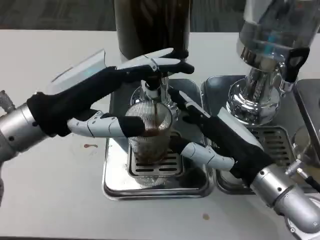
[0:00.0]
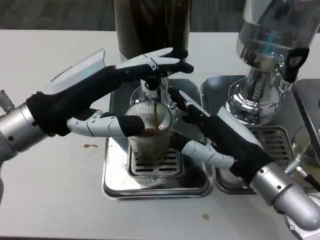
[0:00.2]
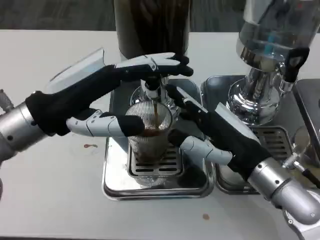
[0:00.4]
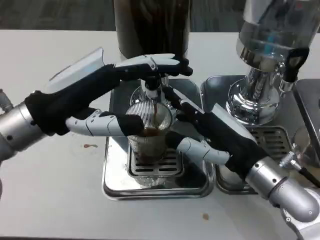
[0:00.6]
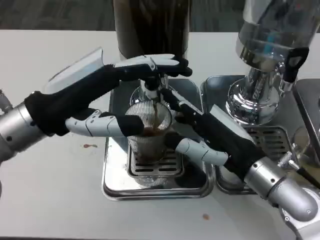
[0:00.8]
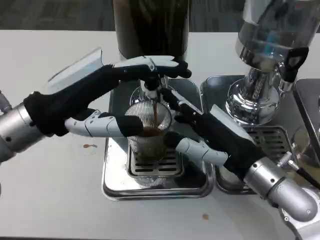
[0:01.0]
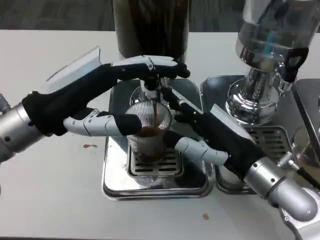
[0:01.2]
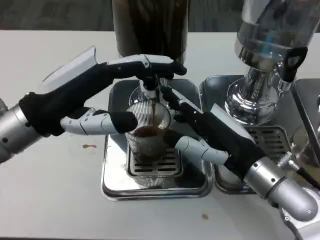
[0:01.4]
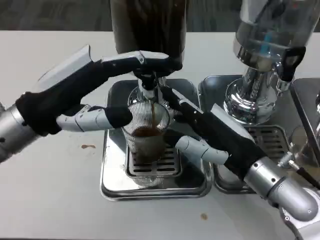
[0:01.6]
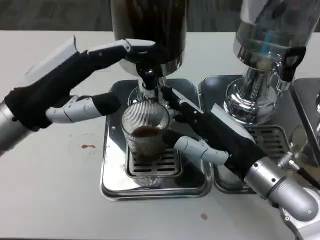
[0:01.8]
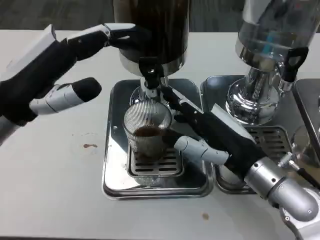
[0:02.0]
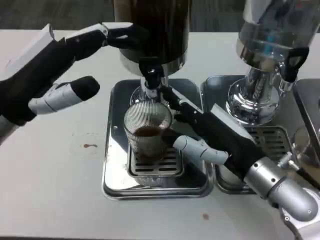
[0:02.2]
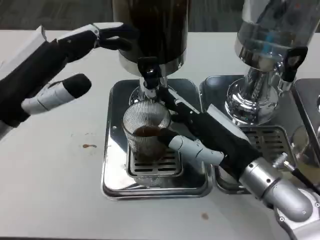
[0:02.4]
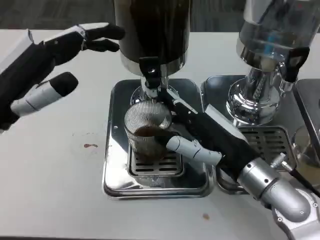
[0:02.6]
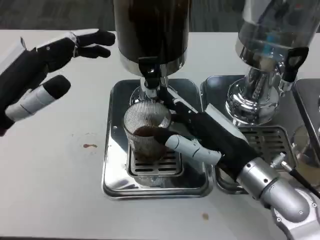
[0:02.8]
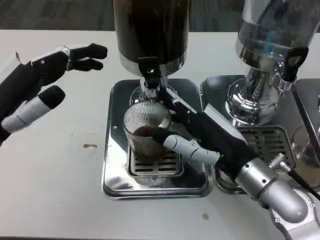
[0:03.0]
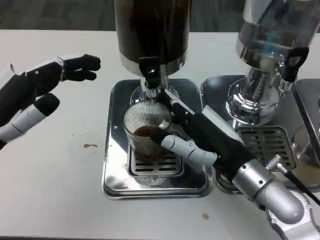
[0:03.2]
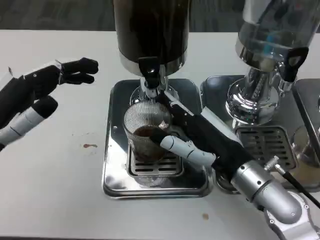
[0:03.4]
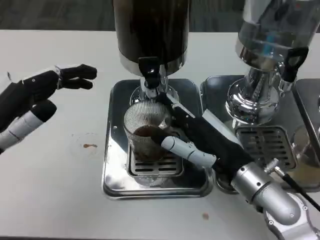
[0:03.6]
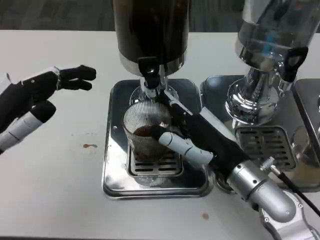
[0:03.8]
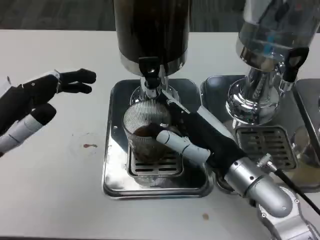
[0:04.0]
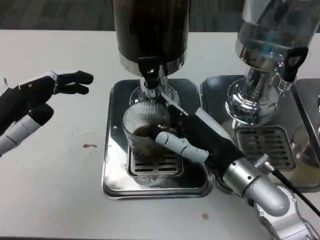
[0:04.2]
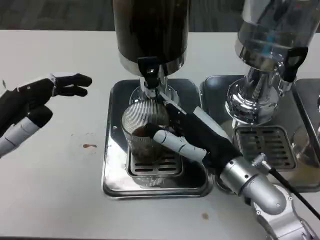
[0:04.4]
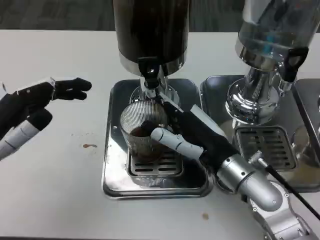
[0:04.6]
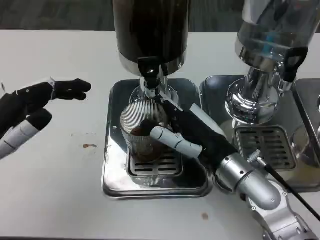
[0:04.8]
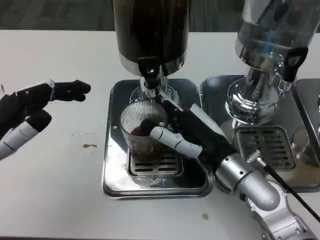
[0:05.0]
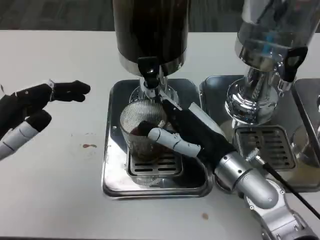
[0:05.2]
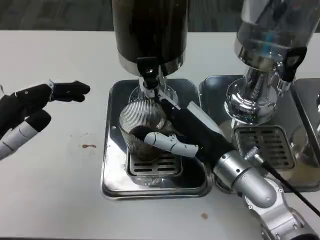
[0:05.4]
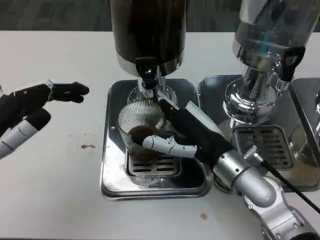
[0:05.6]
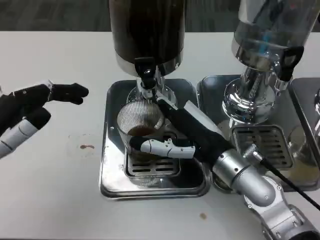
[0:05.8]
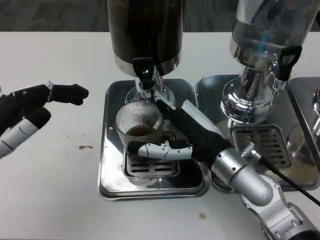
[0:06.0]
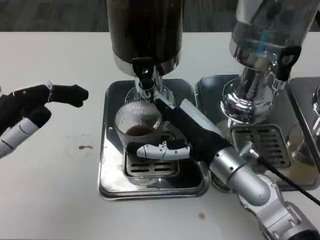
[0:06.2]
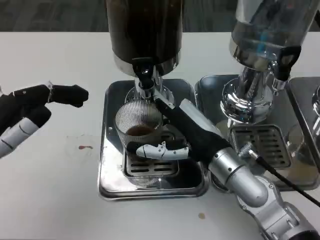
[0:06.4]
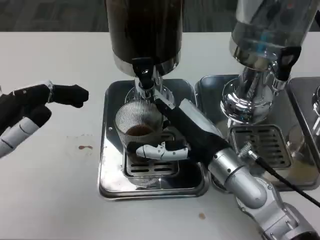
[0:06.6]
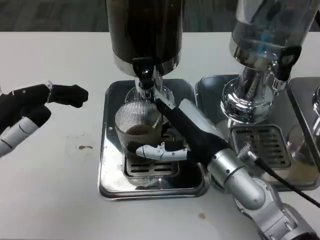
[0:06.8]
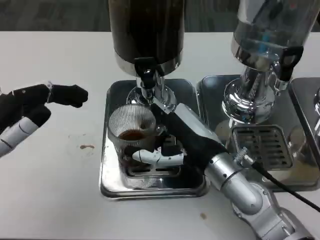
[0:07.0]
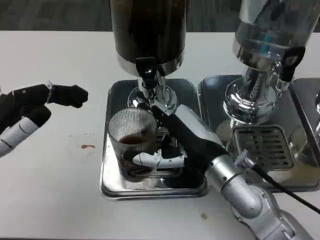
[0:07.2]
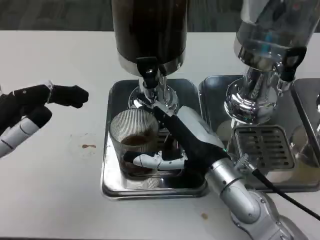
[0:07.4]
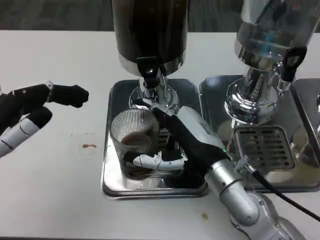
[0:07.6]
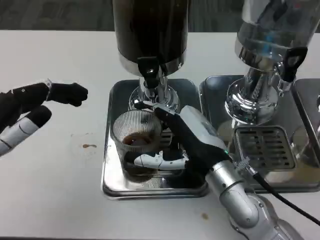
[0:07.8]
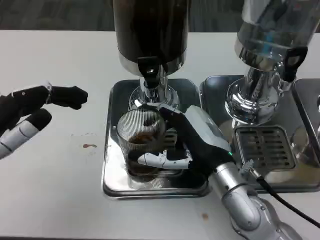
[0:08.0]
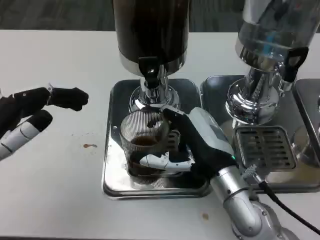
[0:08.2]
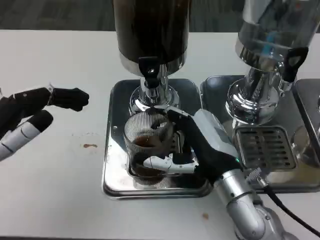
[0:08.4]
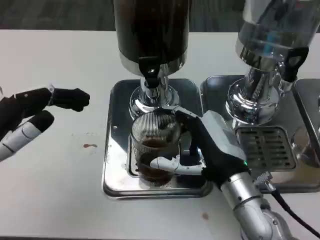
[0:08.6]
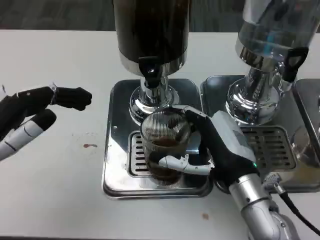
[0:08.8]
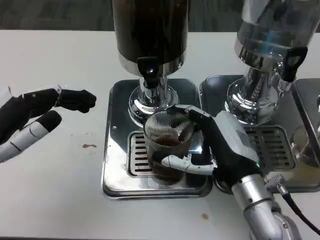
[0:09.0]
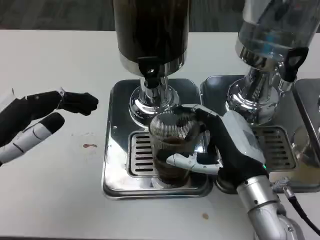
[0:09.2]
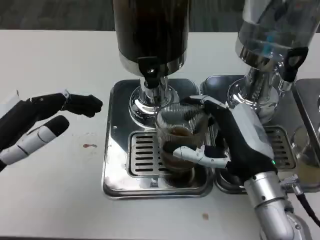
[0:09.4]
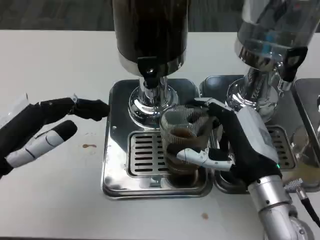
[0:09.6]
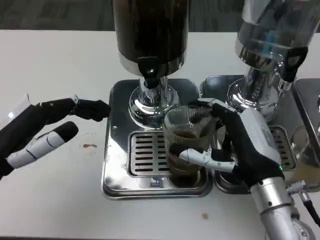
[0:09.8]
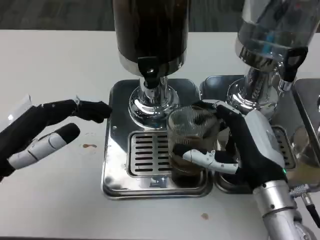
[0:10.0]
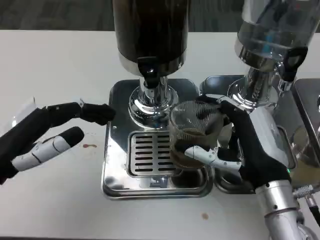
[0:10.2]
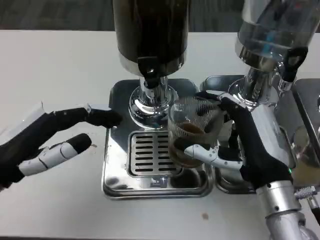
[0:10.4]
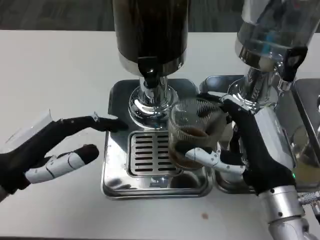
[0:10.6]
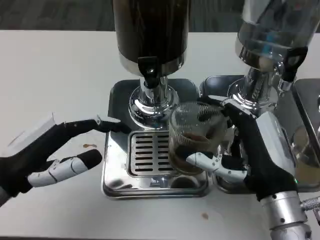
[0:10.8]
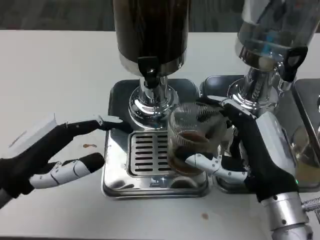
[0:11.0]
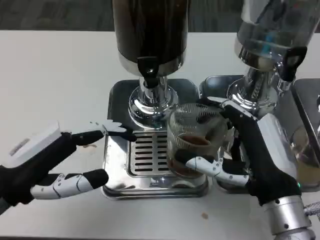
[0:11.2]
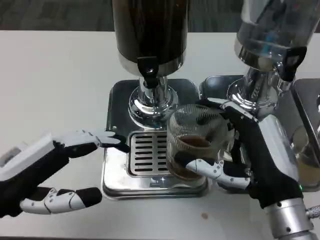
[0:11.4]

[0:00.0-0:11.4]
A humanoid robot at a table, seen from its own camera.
Task of the whole recording: Grasp the cup under the faucet to collect the drink, then remove the cup.
0:00.0 to 0:01.4: The hands make only small movements.
0:01.4 to 0:02.8: The left hand moves to the left, some 5 cm.
0:02.8 to 0:04.2: The left hand changes place by about 5 cm.
0:05.6 to 0:07.2: The hands stay close to where they were, moving slightly.

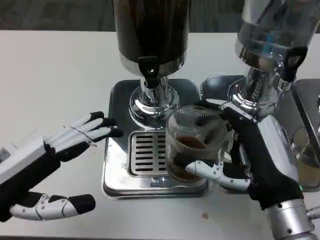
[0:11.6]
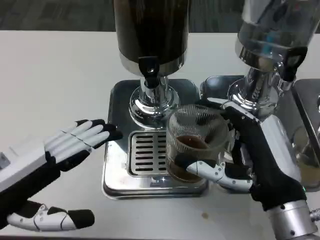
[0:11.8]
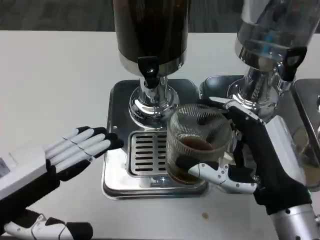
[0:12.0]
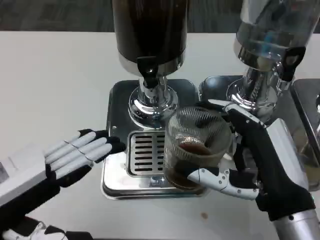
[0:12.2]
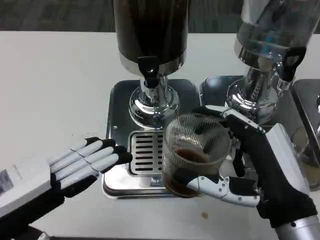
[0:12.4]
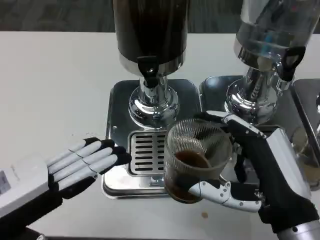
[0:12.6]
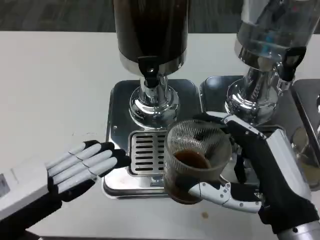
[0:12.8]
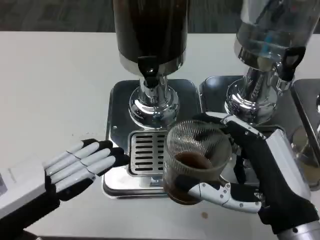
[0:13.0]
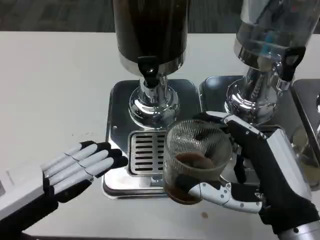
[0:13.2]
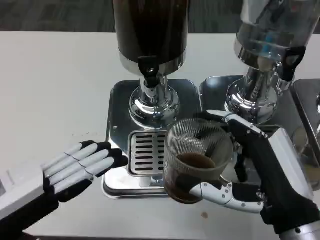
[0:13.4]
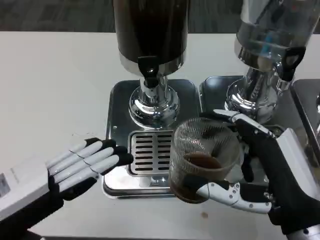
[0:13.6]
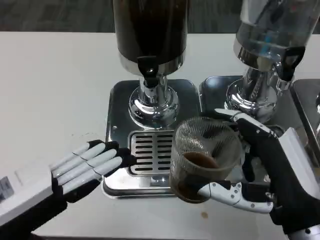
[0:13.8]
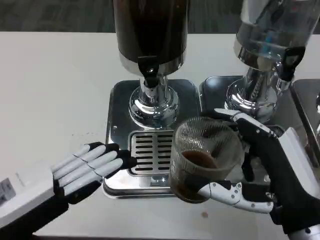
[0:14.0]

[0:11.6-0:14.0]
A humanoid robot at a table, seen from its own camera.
Task of the whole recording: Grasp the cup under the faucet to collect the drink, then remove the cup.
0:12.8 to 0:14.0: Both hands stay put.

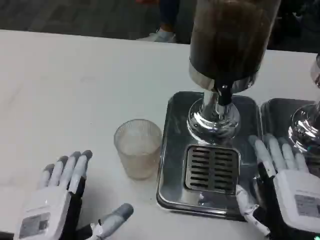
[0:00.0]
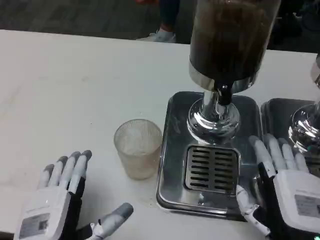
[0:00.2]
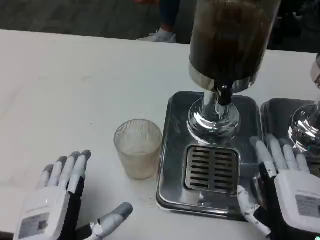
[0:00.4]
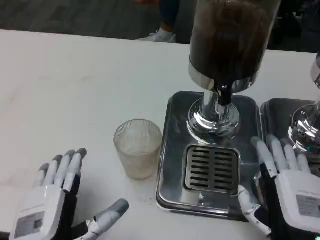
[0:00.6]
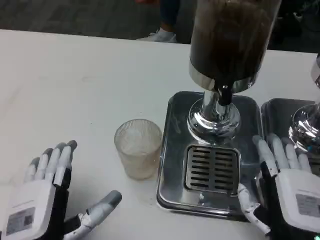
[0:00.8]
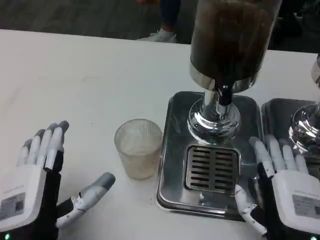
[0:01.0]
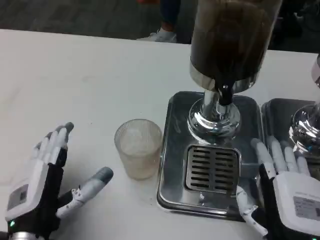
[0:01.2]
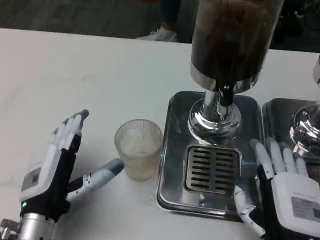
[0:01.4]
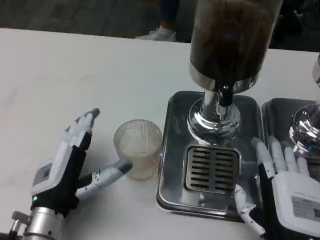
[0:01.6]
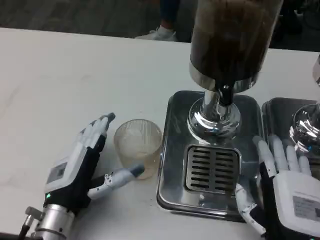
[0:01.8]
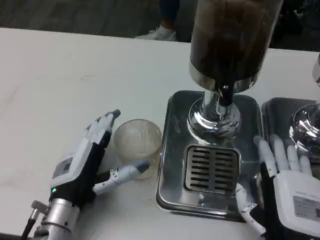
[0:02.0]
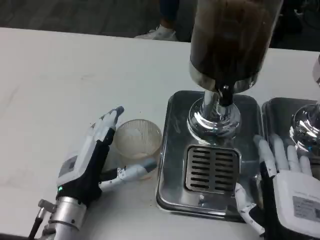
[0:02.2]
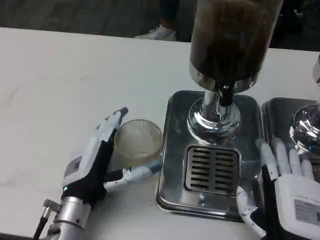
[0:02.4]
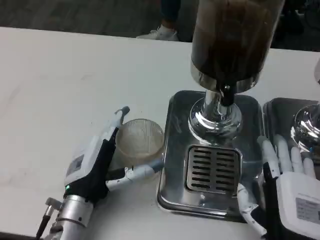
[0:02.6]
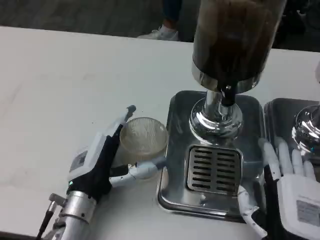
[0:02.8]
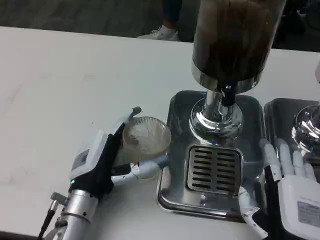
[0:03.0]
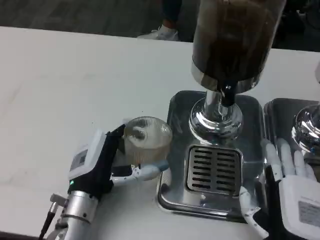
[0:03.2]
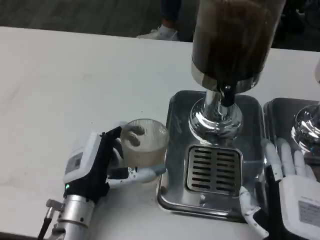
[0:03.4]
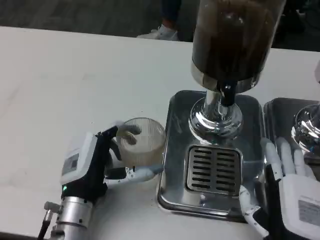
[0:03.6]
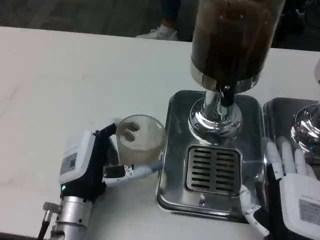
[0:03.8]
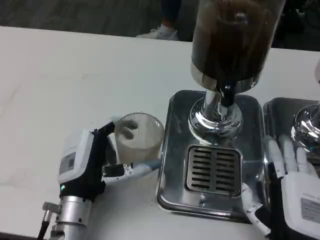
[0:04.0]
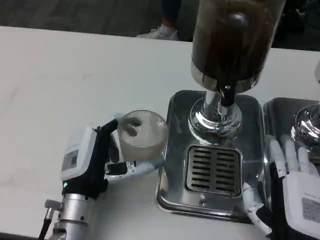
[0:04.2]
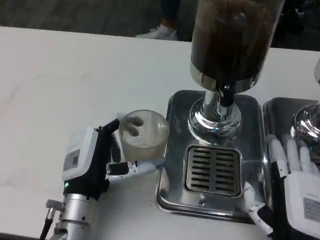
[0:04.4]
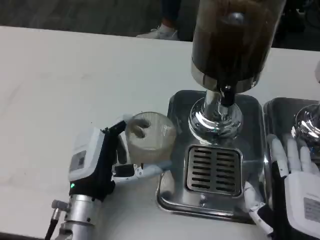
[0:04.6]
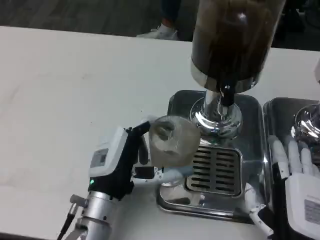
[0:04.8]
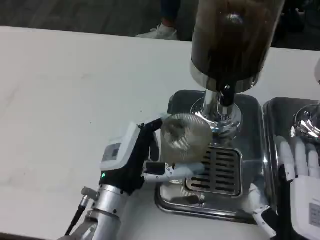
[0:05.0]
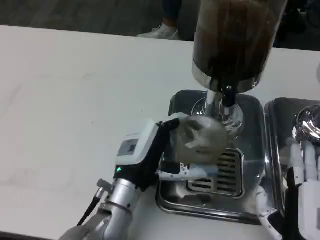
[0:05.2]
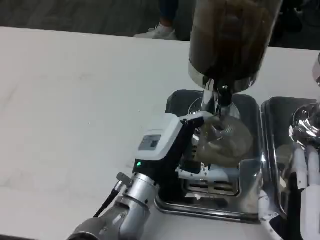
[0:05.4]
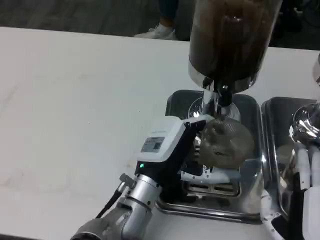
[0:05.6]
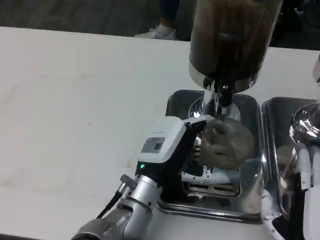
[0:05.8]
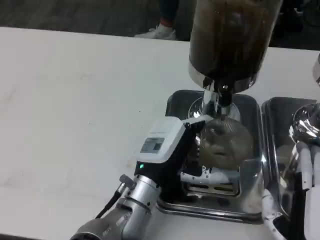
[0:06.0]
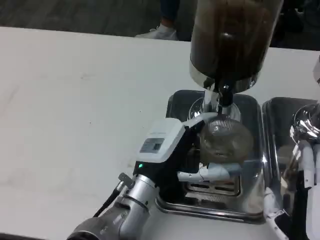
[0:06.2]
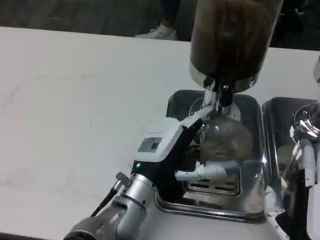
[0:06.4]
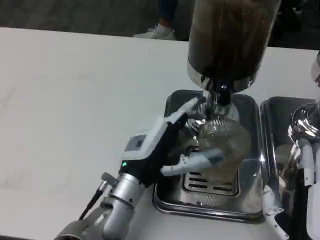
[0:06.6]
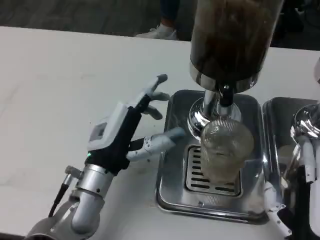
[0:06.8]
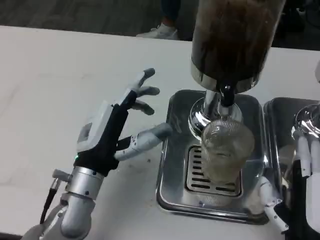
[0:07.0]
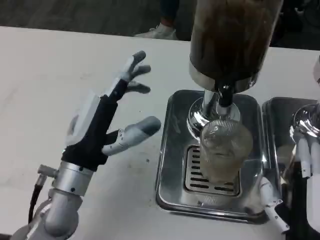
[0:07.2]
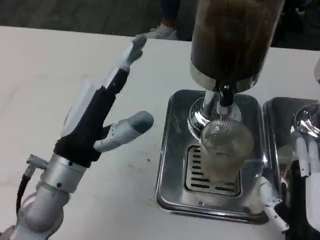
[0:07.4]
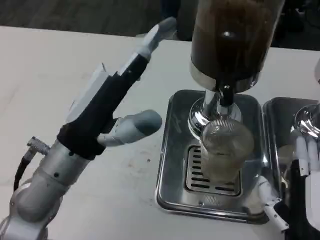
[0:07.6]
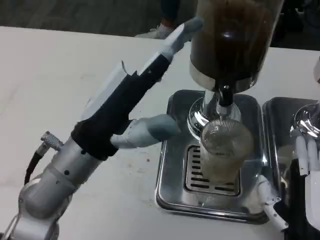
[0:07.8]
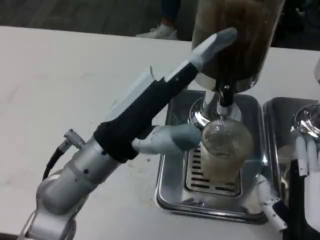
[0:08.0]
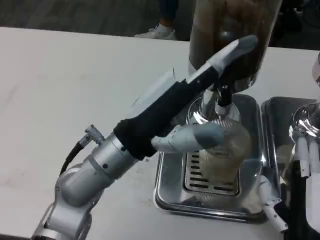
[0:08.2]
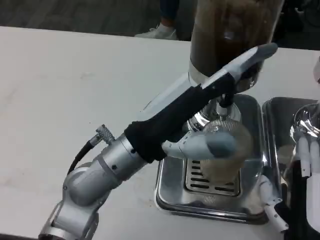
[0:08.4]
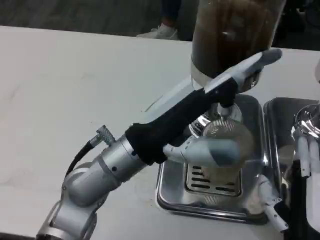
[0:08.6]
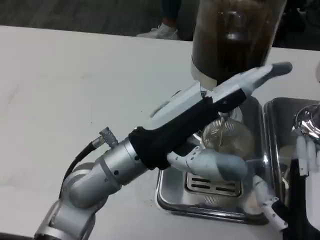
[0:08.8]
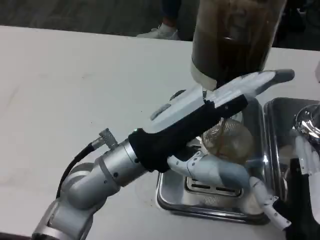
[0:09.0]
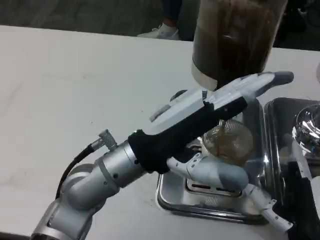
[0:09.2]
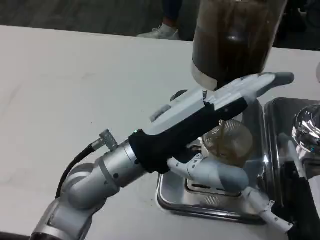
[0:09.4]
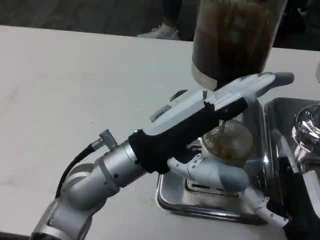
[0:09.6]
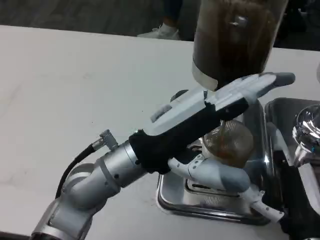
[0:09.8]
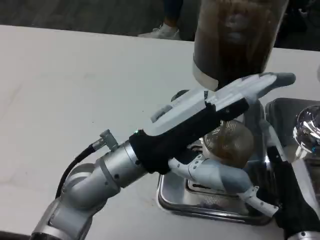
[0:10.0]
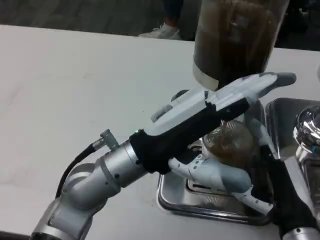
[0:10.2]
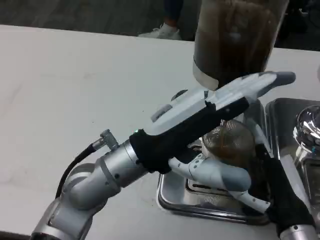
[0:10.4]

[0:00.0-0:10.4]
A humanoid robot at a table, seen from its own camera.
Task of the whole recording: Grasp the cup under the faucet to collect the drink, then remove the cup.
0:00.0 to 0:01.4: The left hand heads forward, covering approximately 10 cm.
0:01.4 to 0:03.0: The left hand changes place by about 5 cm.
0:03.0 to 0:04.4: The hands make only small movements.
0:04.4 to 0:06.0: The left hand moves to the right, some 10 cm.
0:06.0 to 0:07.4: The left hand is displaced to the left and upward by about 15 cm.
0:07.4 to 0:09.0: The left hand goes approximately 5 cm to the right.
